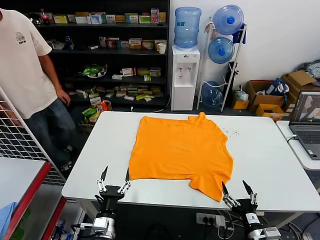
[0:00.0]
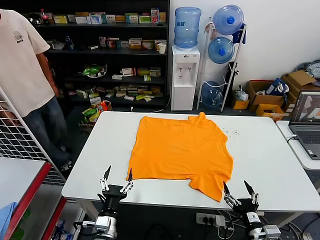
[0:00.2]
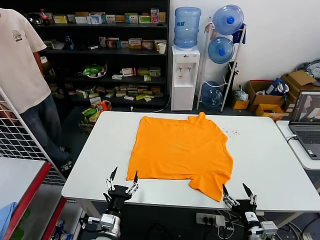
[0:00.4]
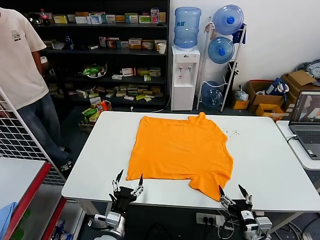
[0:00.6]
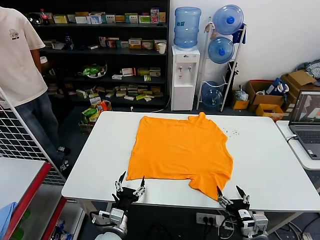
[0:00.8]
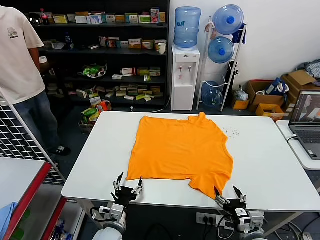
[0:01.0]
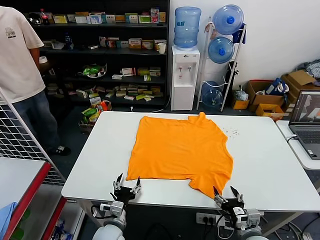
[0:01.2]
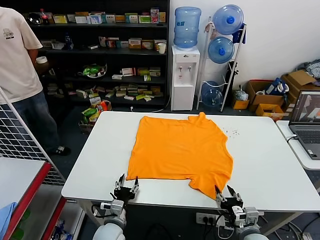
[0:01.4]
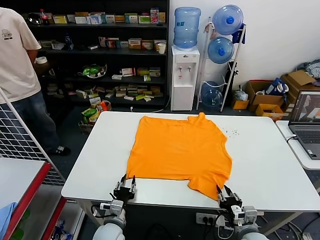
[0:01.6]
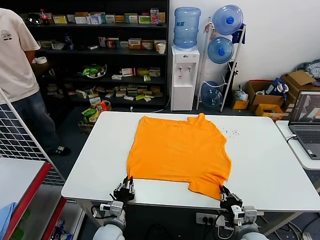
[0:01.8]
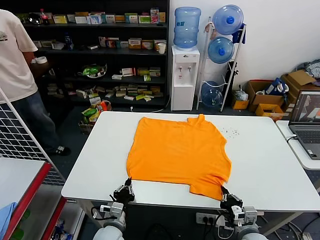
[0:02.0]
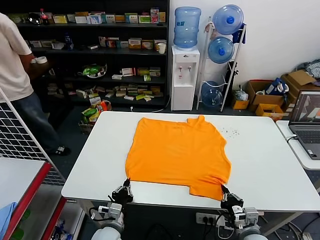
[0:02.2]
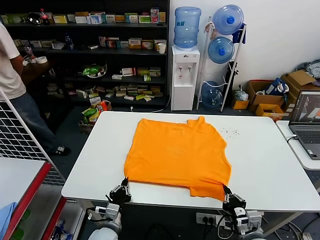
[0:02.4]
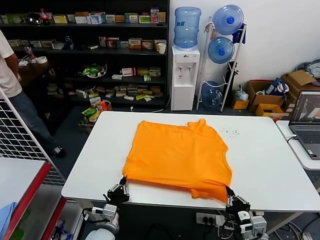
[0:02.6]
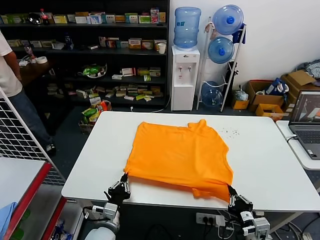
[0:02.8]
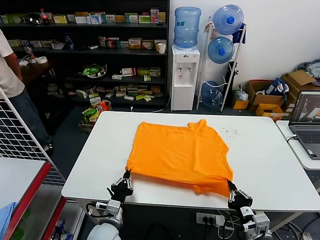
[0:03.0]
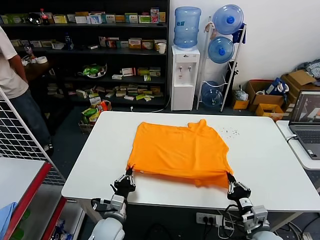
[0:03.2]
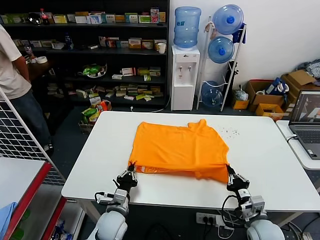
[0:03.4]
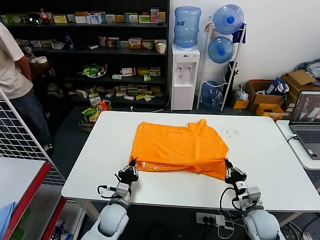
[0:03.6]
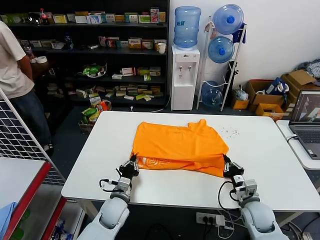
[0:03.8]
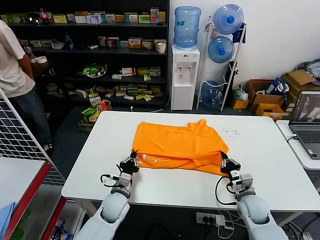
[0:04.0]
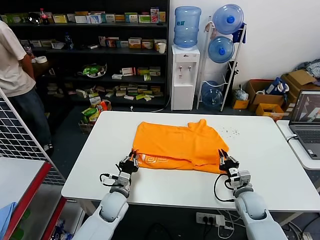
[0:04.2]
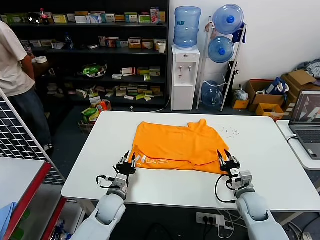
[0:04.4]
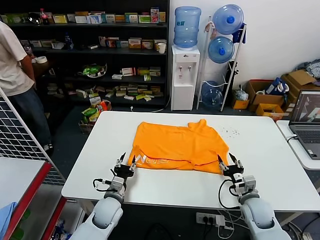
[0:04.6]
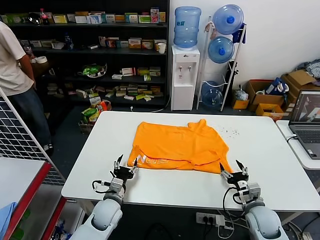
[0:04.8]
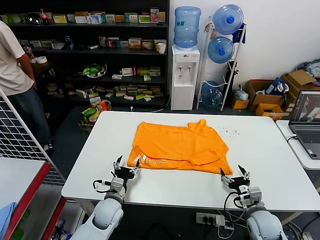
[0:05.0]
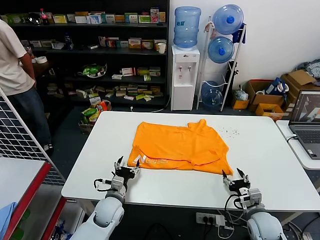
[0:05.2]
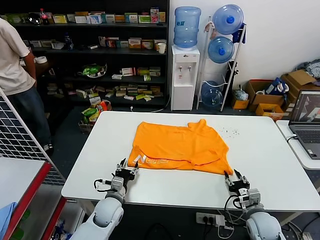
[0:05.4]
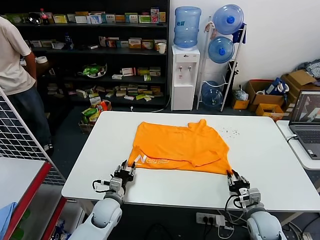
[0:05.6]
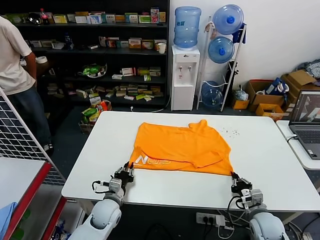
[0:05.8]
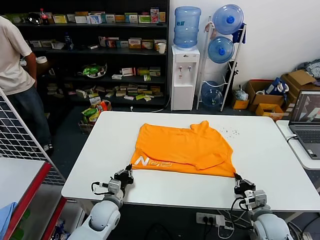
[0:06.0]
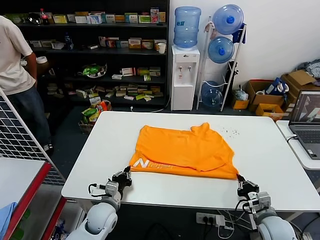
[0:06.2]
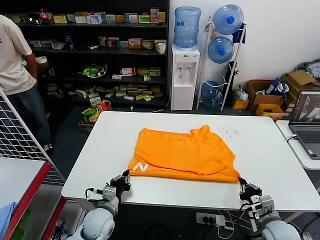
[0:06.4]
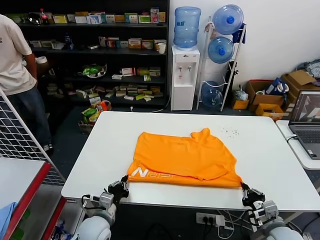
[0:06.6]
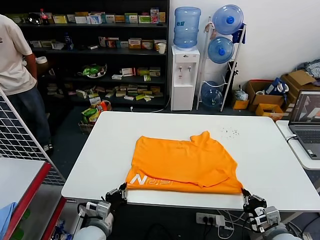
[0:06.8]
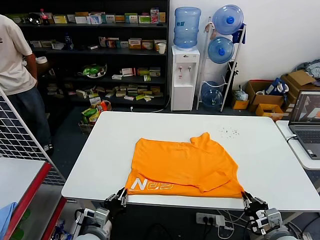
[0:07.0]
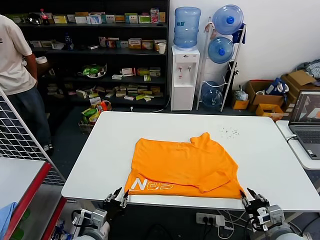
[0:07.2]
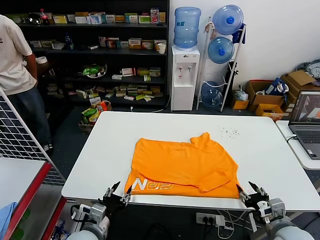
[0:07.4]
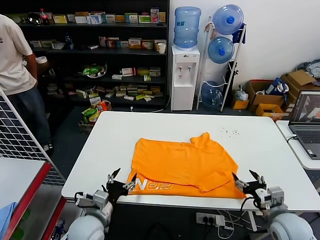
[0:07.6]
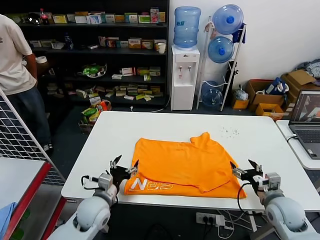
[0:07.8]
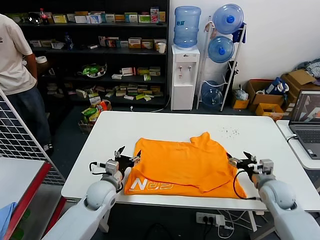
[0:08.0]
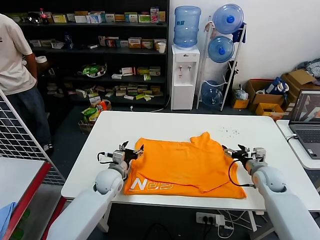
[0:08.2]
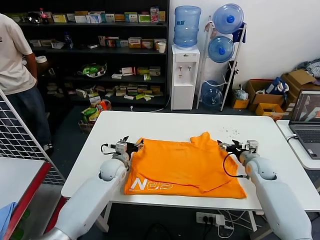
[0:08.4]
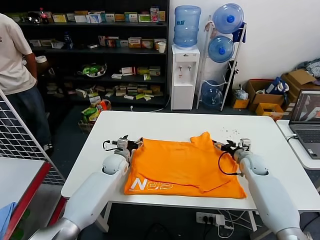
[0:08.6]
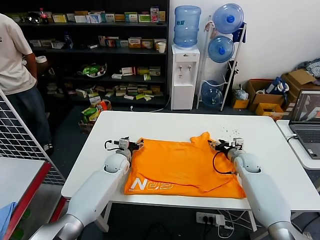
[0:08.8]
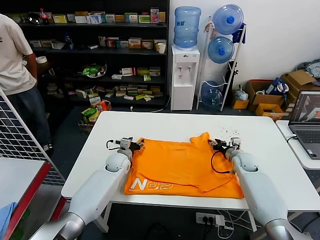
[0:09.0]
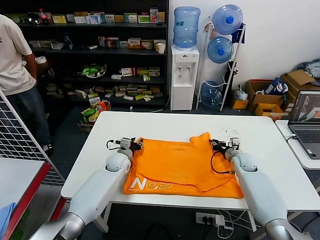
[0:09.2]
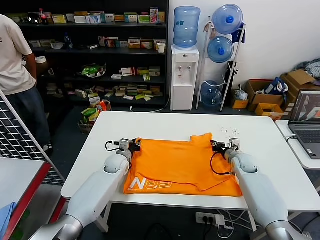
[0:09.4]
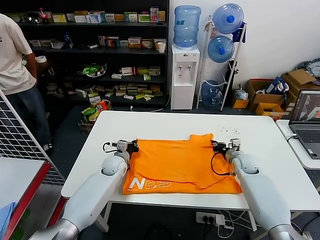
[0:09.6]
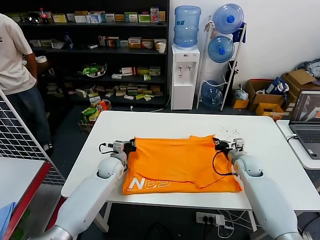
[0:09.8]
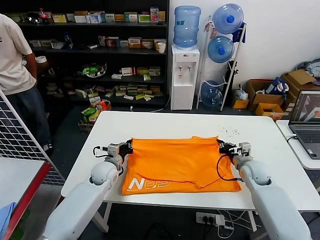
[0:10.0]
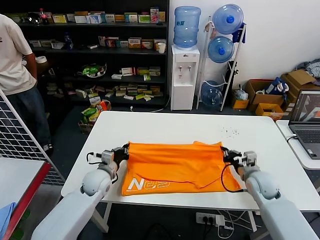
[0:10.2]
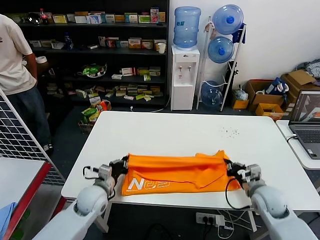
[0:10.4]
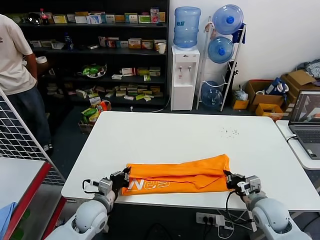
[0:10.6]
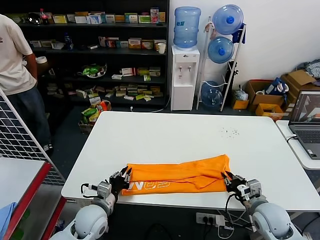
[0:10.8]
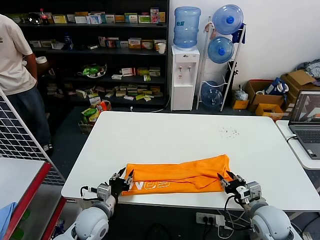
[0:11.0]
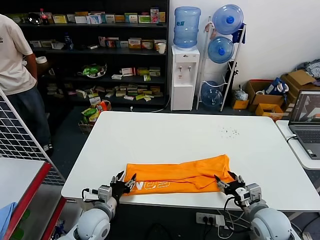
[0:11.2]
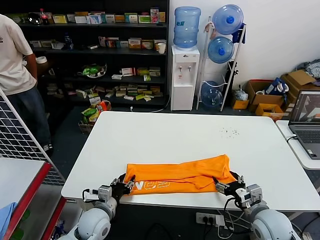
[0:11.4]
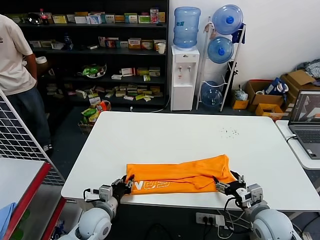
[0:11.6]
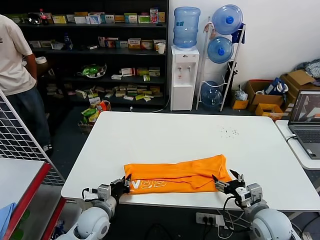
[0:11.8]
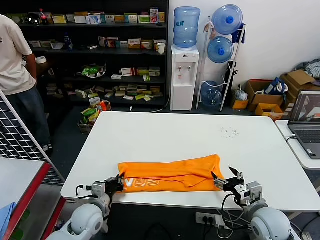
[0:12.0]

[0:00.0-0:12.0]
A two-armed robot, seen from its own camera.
Task of the whole recording: fold and organize the clothes.
Step, 0:00.0 to 0:02.0: use both grippers simultaneously to clamp the lower edge of the clothing fabric.
Step, 0:02.2 to 0:04.4: use both grippers to drag the lower edge of the fabric forward and fold it over the upper edge.
Step, 0:04.6 to 0:07.0: Drag the clothes downward with both gripper.
Step, 0:07.2 to 0:09.6: use both grippers simultaneously to clamp the upper edge of the clothing fabric.
Step, 0:09.8 to 0:10.6: use both grippers to drag the upper edge of the fabric backward and fold it over the lower edge.
Step, 0:11.0 to 0:12.0: use the left gripper to clamp the left edge of the fabric.
0:01.6 to 0:03.0: The left gripper closes its fingers.
0:03.0 to 0:04.4: The grippers both shift forward by about 10 cm. The right gripper opens its fingers.
0:04.4 to 0:06.0: The left gripper opens, then closes once more. Meanwhile the right gripper travels backward by approximately 5 cm, and closes.
0:06.0 to 0:07.6: The left gripper heads backward and upward, covering some 10 cm, and opens up. The right gripper moves upward, roughly 10 cm, and opens.
0:07.6 to 0:09.0: The grippers both shift forward by roughly 25 cm. The right gripper closes its fingers.
0:09.0 to 0:10.4: Both grippers travel together backward, approximately 15 cm. The left gripper closes up. Meanwhile the right gripper closes up.
0:10.4 to 0:12.0: Both grippers travel together backward, about 5 cm. The left gripper opens and closes again, while the right gripper opens its fingers.

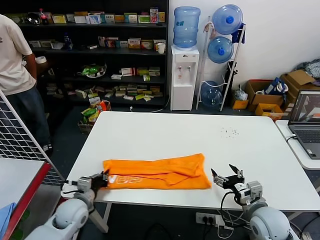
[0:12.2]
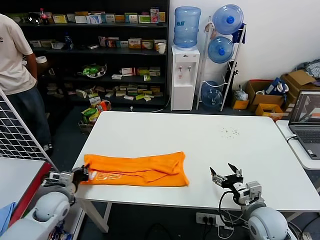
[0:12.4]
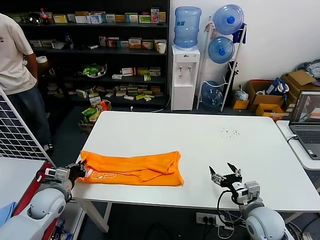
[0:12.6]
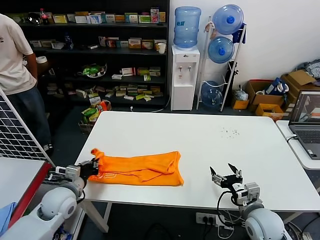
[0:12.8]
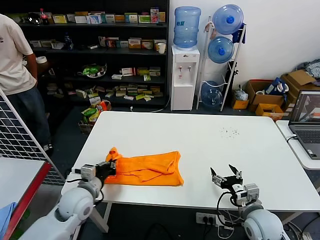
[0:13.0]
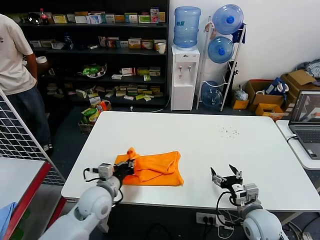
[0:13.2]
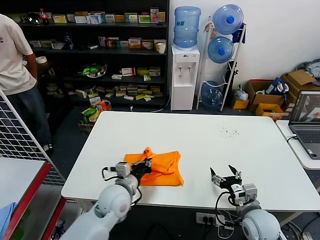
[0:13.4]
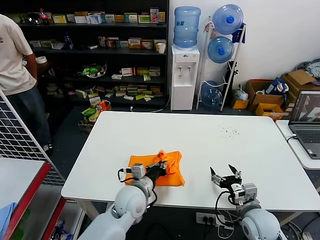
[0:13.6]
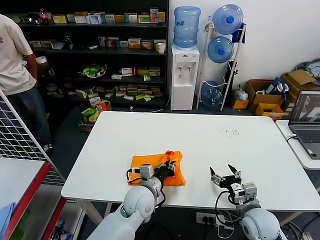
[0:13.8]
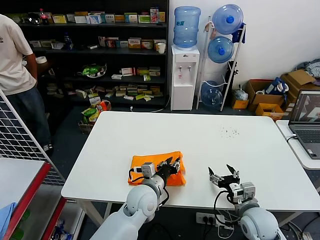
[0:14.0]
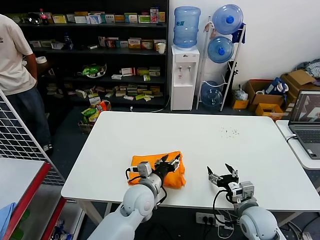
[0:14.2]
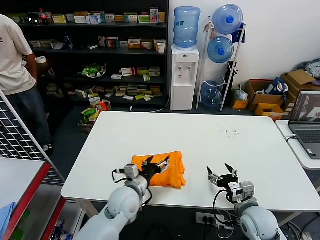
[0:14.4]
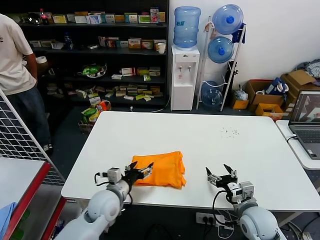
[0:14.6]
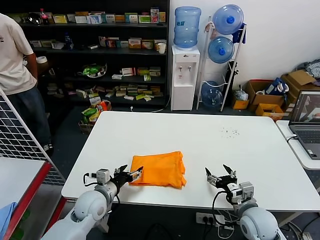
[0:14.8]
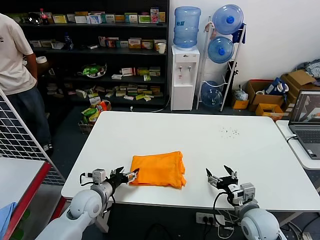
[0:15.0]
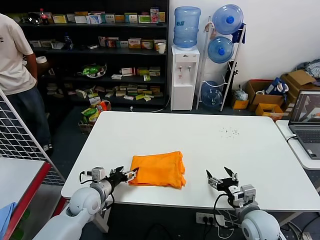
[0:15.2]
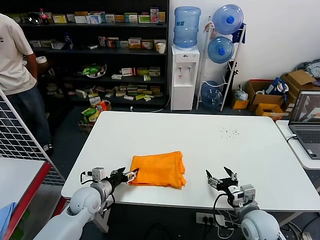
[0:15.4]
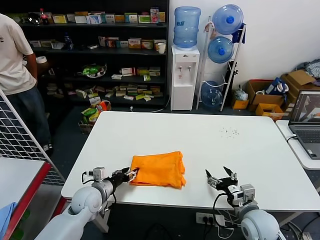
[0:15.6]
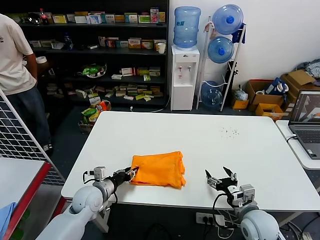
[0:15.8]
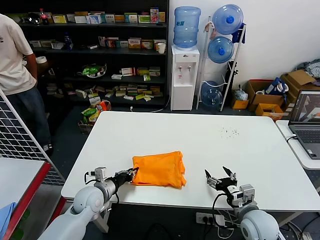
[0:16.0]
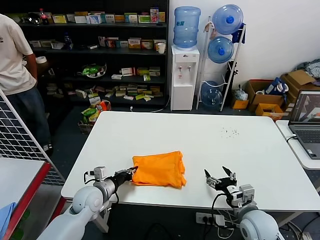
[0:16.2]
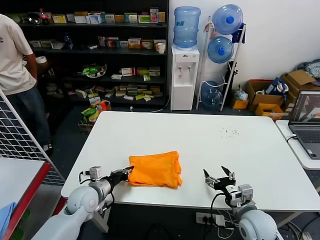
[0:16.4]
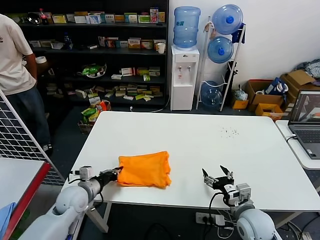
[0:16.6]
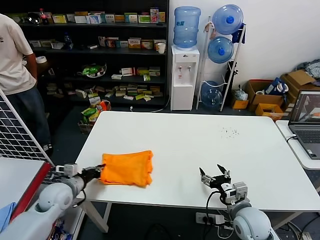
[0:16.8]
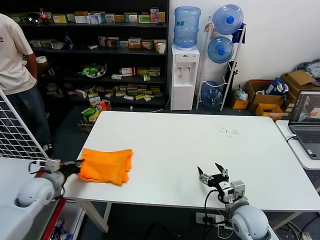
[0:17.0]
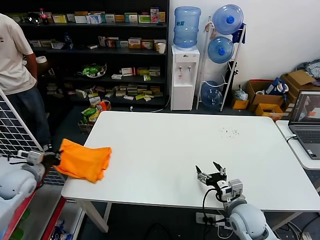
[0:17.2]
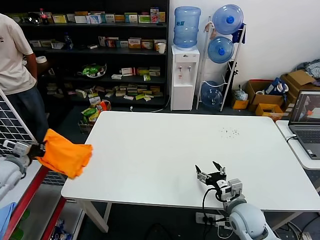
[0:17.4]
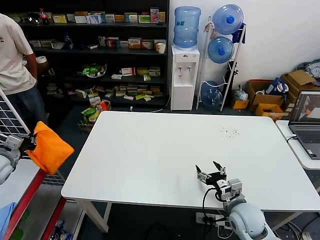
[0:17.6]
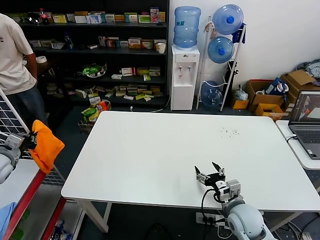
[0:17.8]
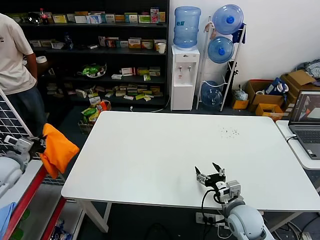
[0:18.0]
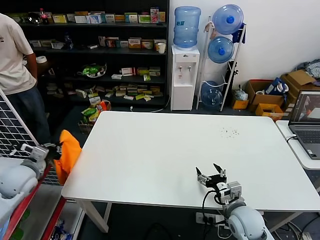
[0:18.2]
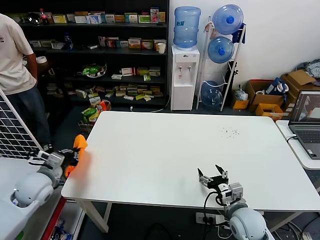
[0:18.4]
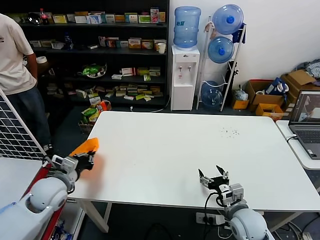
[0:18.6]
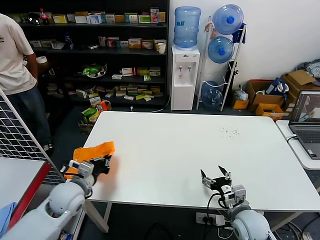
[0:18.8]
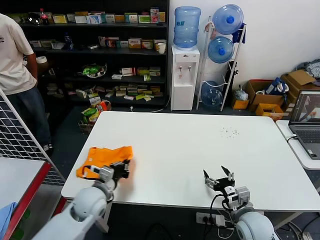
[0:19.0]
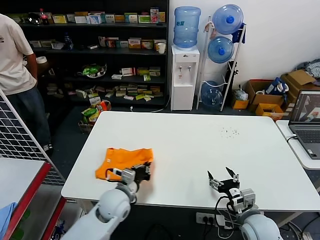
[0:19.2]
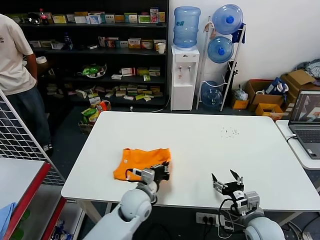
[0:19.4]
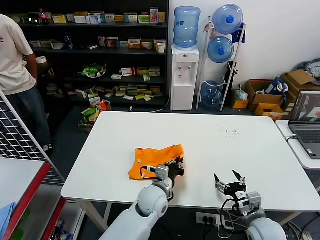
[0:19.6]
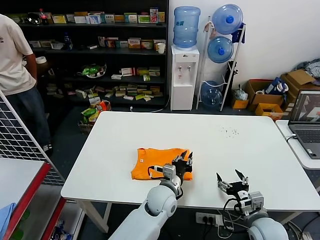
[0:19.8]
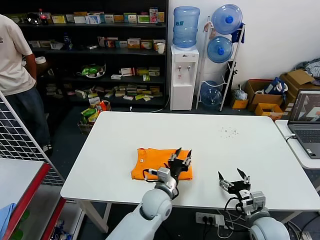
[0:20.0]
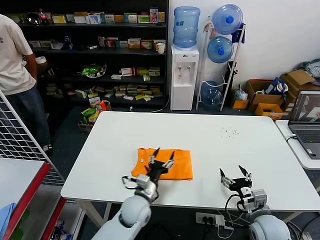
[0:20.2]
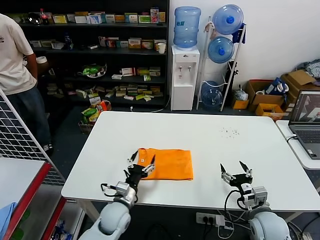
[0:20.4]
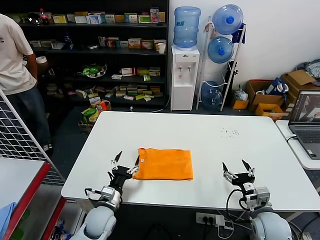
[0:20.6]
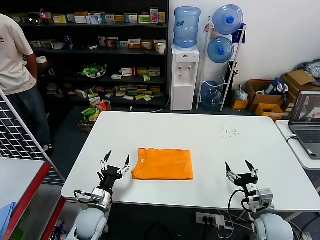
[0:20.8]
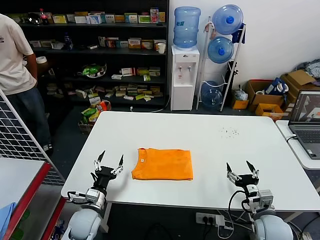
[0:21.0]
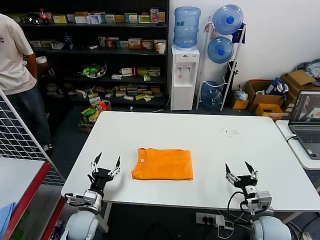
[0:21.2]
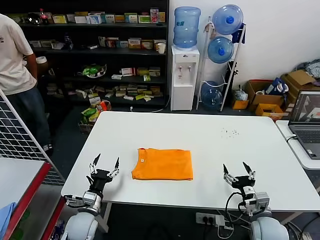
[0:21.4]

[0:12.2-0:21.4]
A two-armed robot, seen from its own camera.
Task of the whole recording: fold and organize the clothes.
Step, 0:12.2 to 0:13.8: use the left gripper to drag the left edge of the fabric to the left and folds it over the right edge.
Step, 0:14.0 to 0:19.6: Flip the folded clothes over with left gripper.
0:12.2 to 0:13.8: The left gripper heads to the right, covering approximately 20 cm.
0:13.8 to 0:15.2: The left gripper heads to the left, covering about 20 cm, and opens.
0:15.2 to 0:16.8: The left gripper goes about 10 cm to the left, and closes up.
0:16.8 to 0:18.4: The left gripper heads upward and to the left, covering some 10 cm.
0:18.4 to 0:19.8: The left gripper moves to the right, about 40 cm; the right gripper goes approximately 5 cm to the right.
0:19.8 to 0:21.4: The left gripper heads to the left, covering some 25 cm, and opens up.
